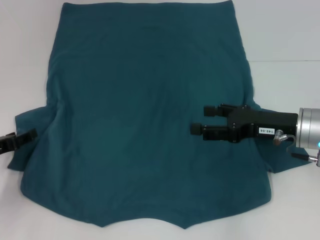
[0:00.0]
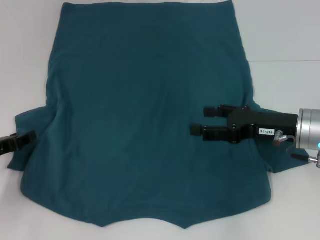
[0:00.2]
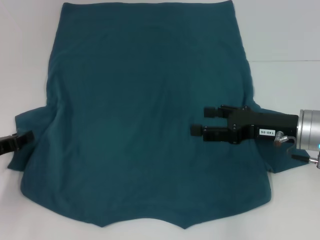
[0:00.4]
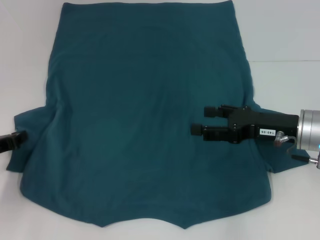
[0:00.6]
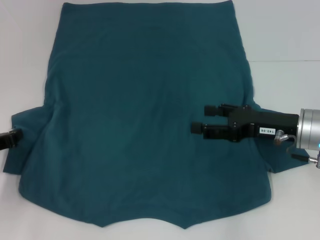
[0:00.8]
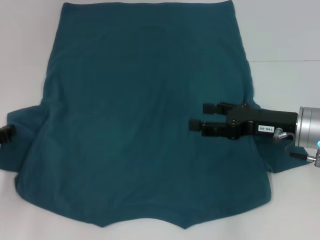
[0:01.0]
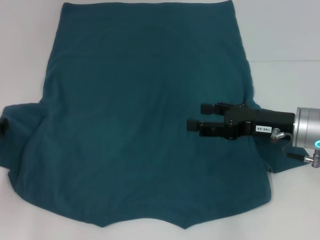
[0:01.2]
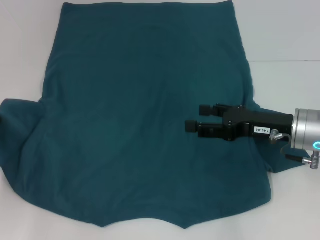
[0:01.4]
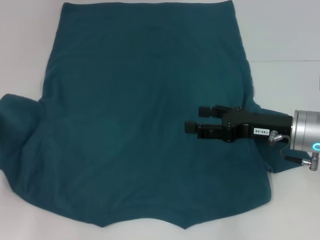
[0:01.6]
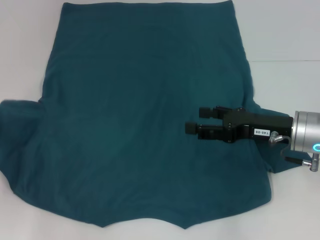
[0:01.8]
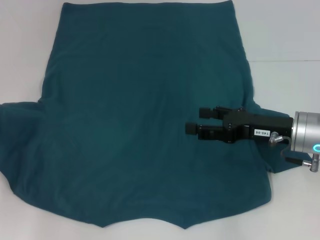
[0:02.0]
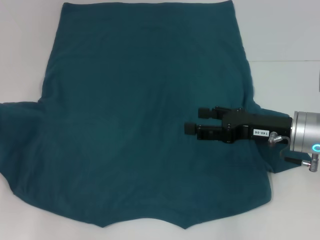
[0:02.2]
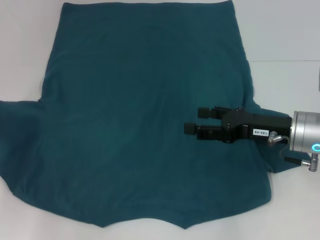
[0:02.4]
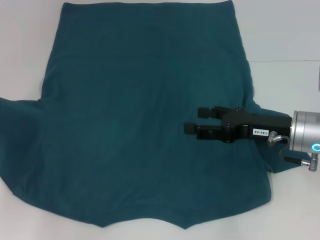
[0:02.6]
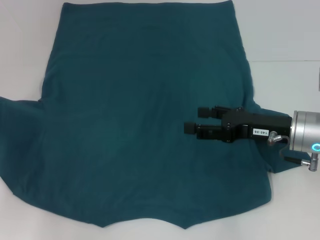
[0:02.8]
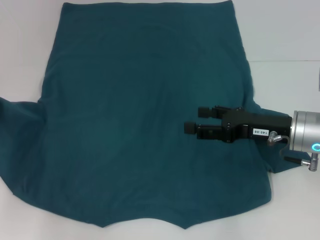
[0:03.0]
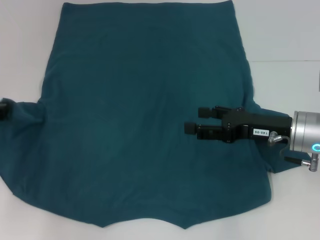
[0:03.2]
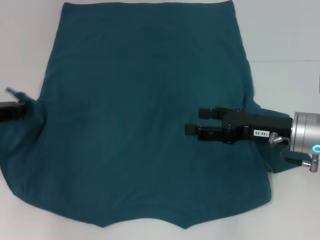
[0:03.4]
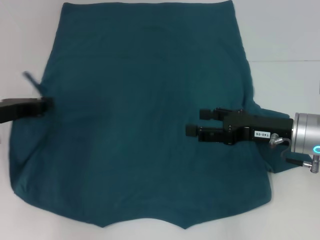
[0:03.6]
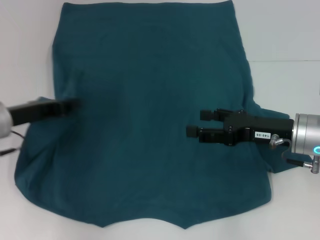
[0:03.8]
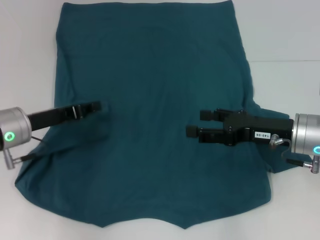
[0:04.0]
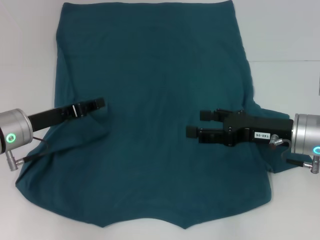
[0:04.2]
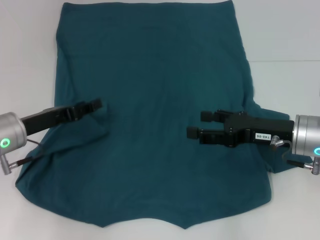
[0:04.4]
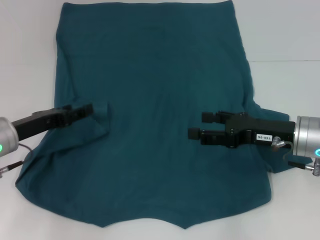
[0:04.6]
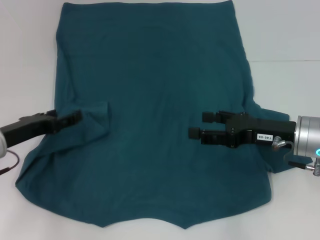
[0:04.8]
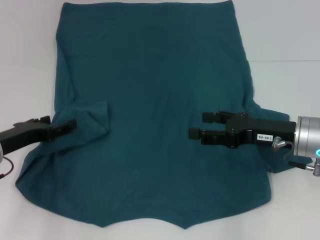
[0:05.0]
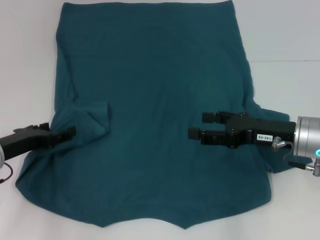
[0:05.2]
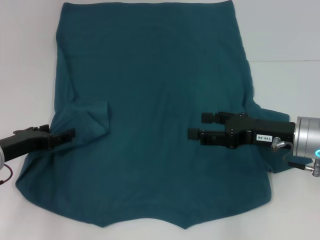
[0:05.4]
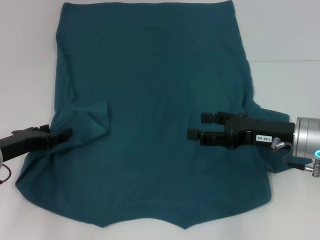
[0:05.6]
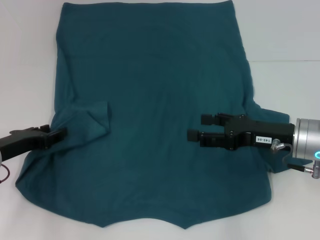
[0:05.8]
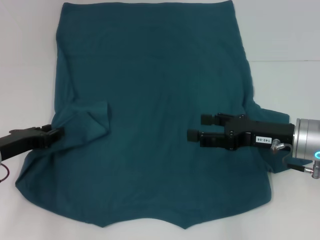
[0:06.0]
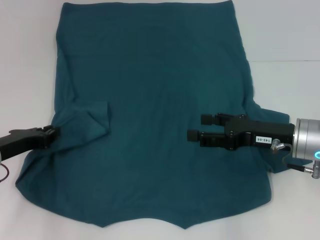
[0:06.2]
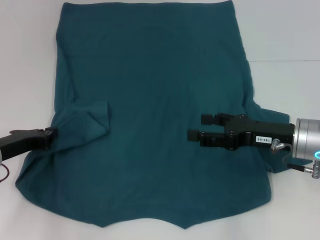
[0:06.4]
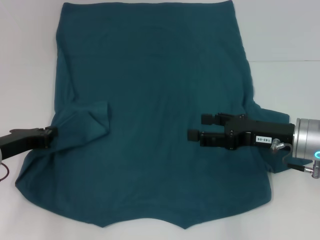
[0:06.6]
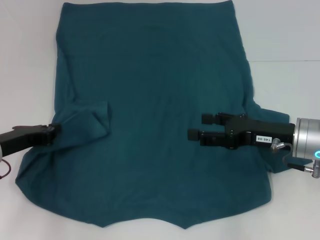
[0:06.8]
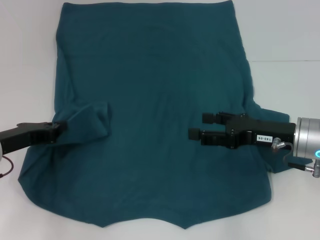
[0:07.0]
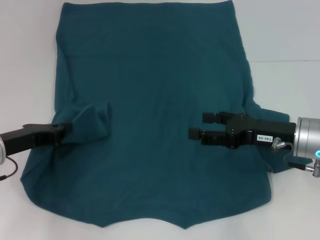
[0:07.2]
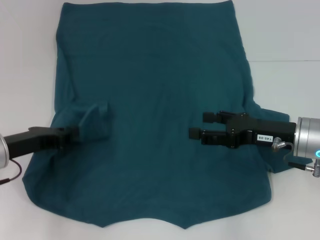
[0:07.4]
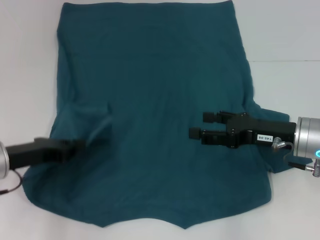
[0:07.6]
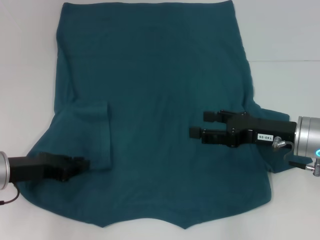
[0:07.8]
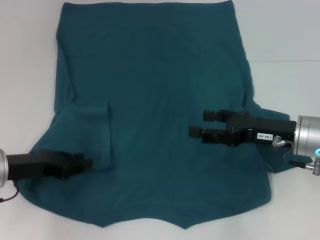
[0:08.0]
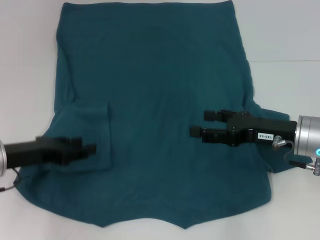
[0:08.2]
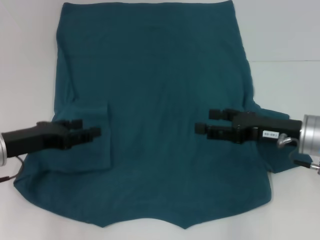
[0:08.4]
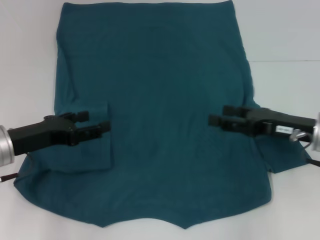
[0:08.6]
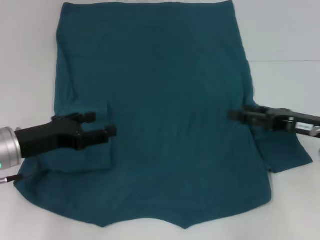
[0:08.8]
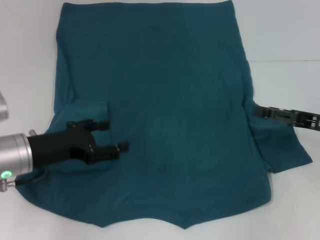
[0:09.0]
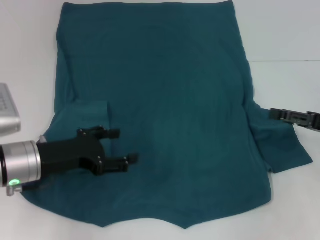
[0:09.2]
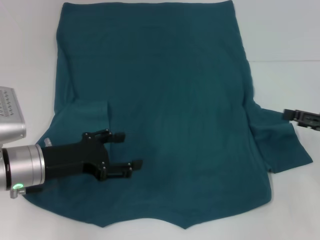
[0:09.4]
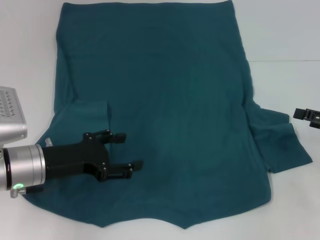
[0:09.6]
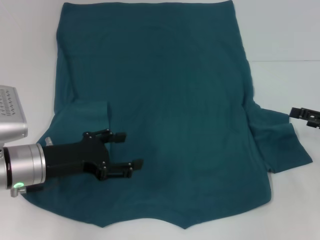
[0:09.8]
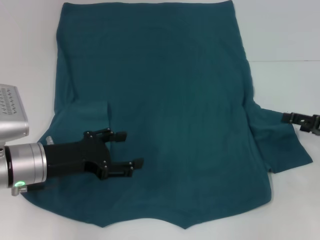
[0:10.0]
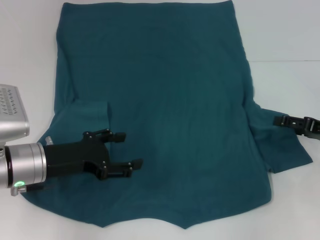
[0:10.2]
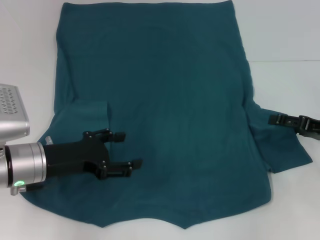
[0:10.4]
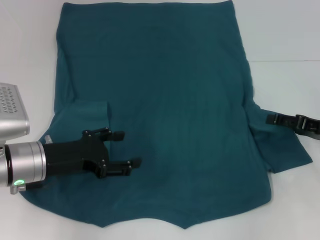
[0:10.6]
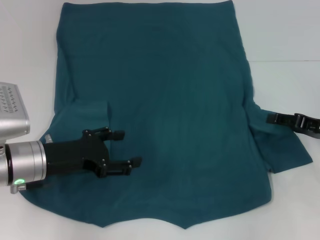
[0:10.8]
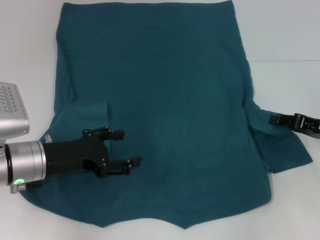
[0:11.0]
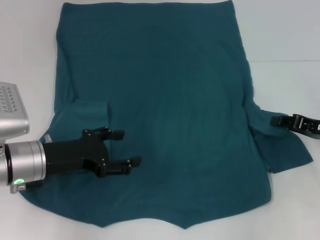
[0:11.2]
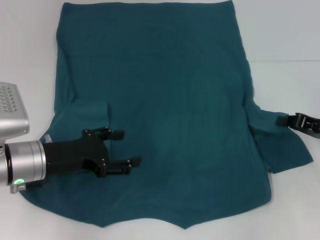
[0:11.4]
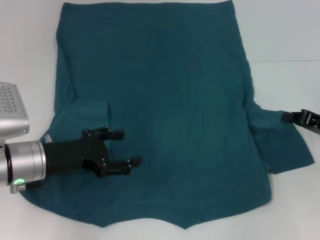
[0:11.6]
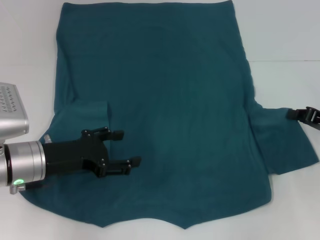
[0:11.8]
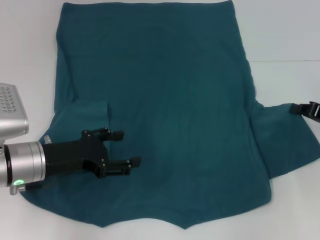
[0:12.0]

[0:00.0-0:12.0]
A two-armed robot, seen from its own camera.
Step, 0:00.0 to 0:08.2: Fold the bottom left sleeve with your left hand.
0:00.0 to 0:01.6: The left gripper closes up.
0:01.6 to 0:03.0: The grippers make only small movements.
0:03.0 to 0:04.4: The left gripper is displaced to the right by some 10 cm, and opens up.
0:04.4 to 0:06.0: The left gripper shifts by some 5 cm, and opens, then closes again.
0:06.0 to 0:07.6: The left gripper closes.
0:07.6 to 0:09.0: The right gripper heads to the right, covering about 10 cm. Meanwhile the left gripper opens.
0:10.4 to 0:12.0: The right gripper closes its fingers.

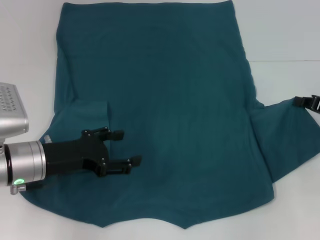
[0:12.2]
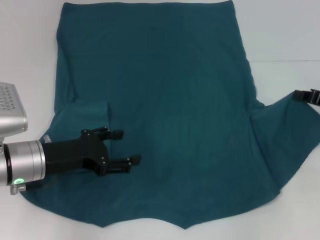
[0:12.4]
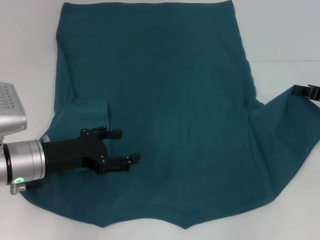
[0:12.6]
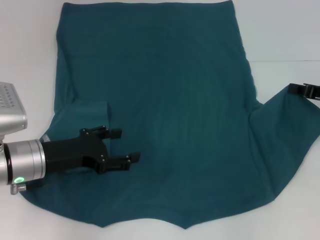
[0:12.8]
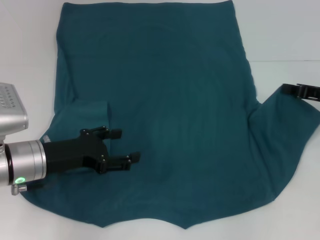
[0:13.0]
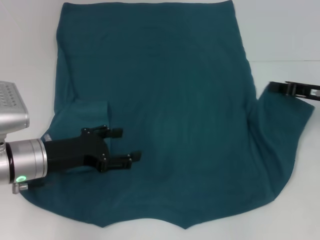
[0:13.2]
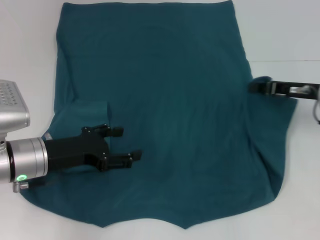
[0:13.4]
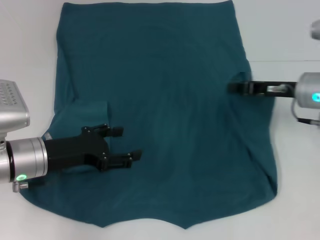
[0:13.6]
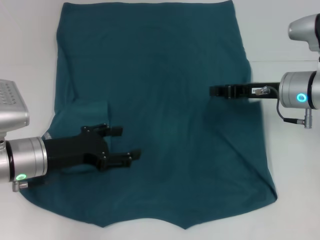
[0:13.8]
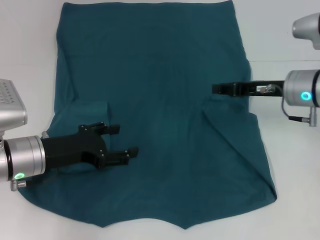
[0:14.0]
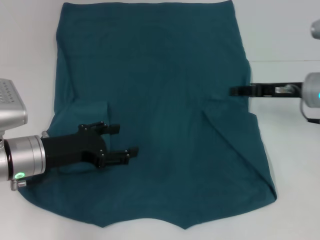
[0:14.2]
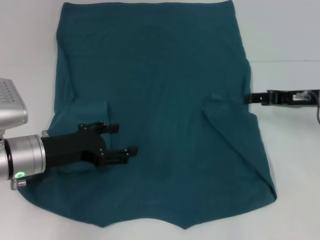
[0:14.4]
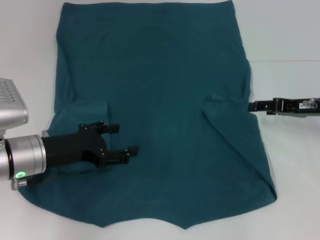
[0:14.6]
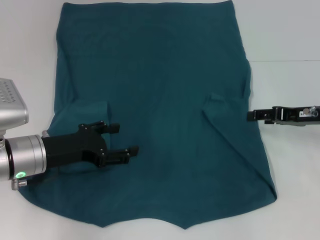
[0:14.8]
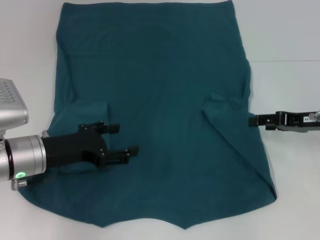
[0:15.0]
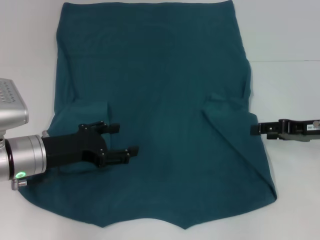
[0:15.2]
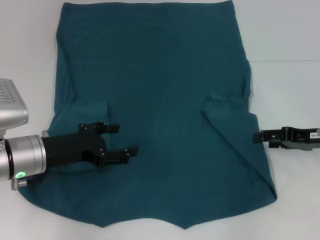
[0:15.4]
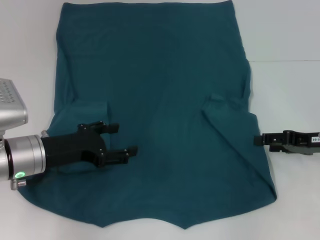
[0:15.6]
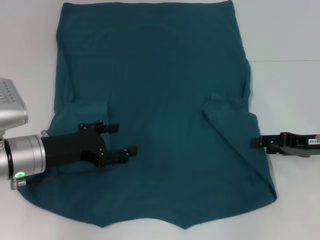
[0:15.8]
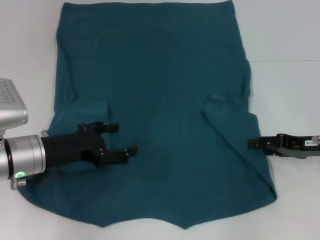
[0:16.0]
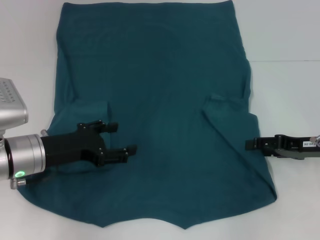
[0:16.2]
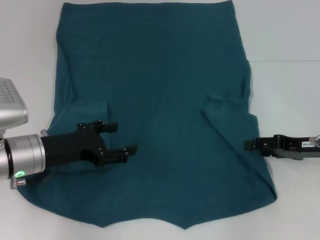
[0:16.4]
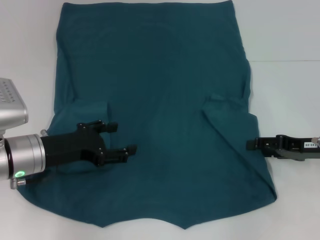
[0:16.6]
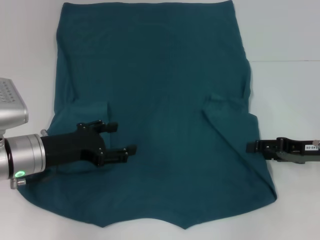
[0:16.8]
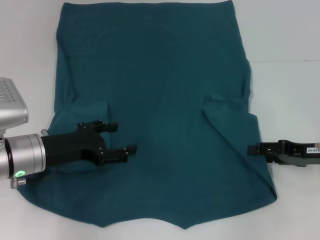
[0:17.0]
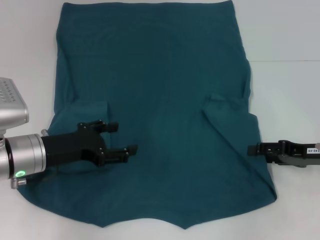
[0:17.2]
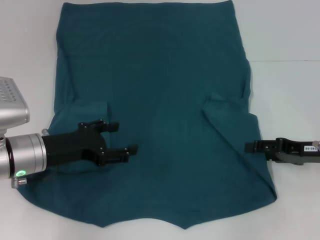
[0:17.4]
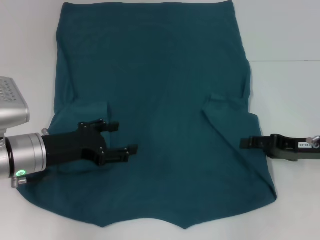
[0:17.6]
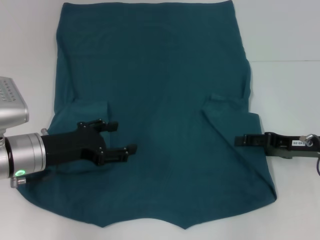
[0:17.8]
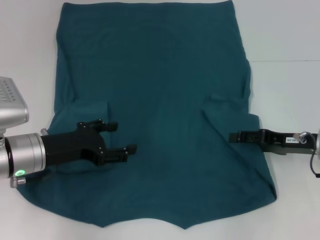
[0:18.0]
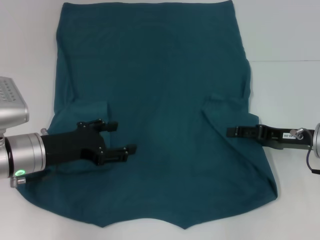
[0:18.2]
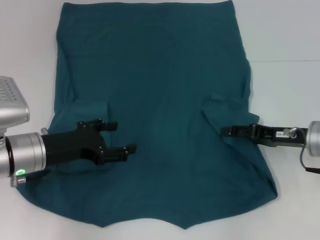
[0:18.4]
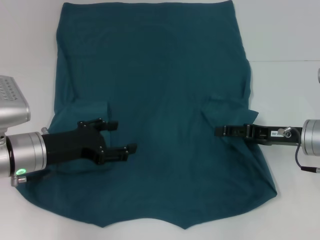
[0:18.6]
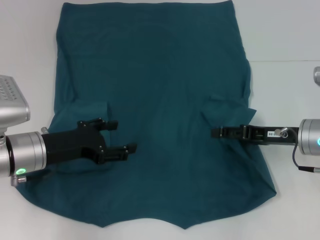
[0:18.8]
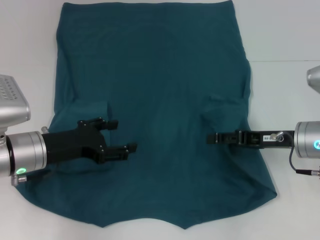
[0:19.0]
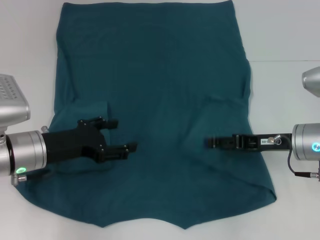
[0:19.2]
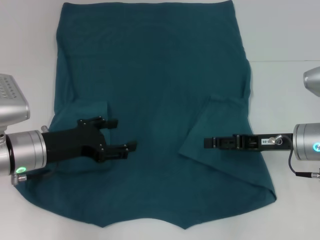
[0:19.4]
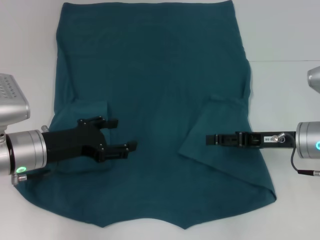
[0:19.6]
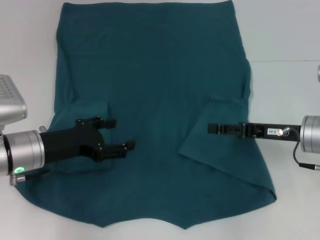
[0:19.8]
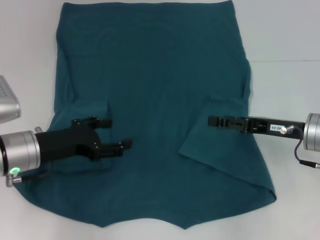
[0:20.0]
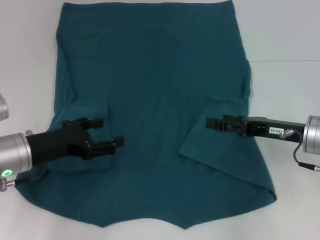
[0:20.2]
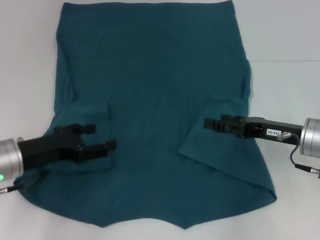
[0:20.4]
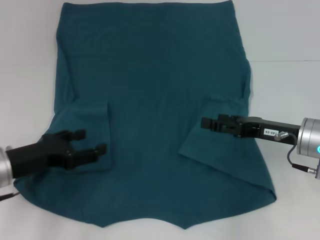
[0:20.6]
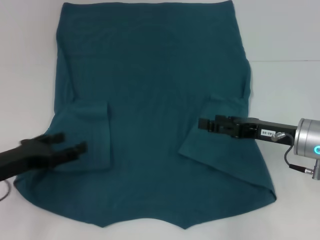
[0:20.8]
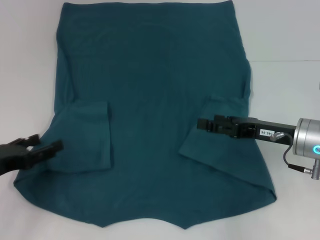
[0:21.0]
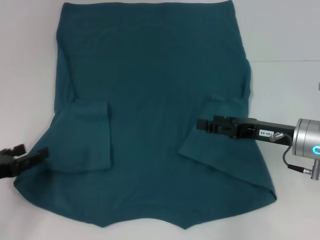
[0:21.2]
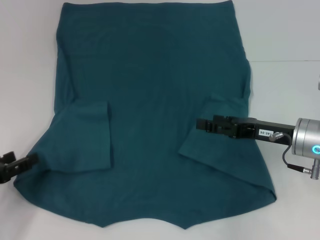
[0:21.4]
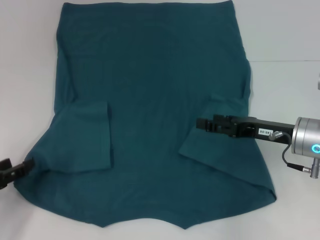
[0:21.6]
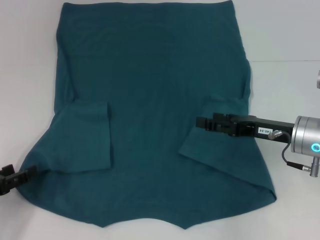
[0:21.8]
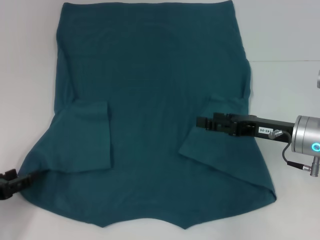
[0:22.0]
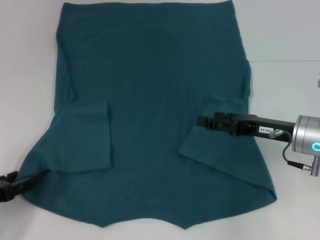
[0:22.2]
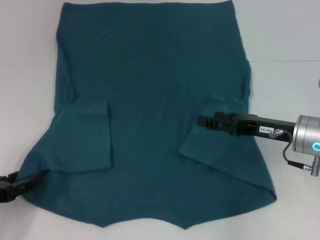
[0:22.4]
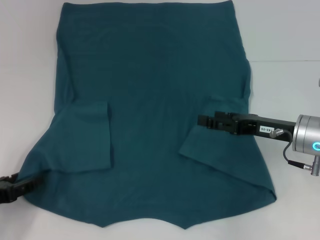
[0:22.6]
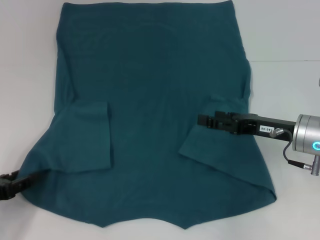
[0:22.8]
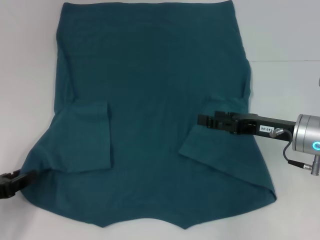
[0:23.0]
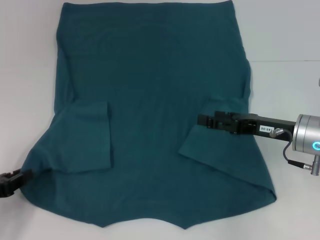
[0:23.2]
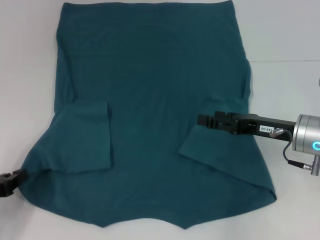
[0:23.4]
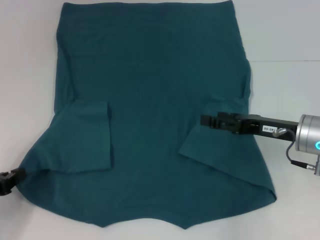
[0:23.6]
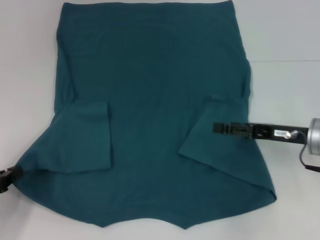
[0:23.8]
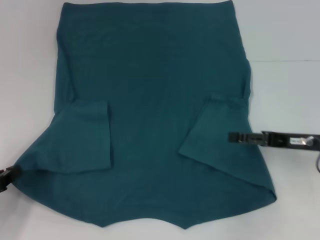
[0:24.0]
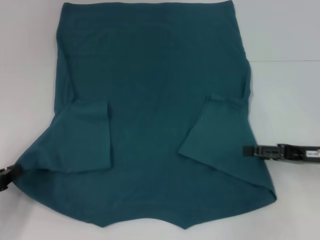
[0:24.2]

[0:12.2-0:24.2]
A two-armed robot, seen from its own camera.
Step, 0:12.2 to 0:19.8: Fold the bottom right sleeve to the right.
Step, 0:20.0 to 0:24.0: Grab the bottom left corner with your left hand.
0:12.2 to 0:13.8: The right gripper is displaced to the left and forward by roughly 15 cm.
0:13.8 to 0:15.2: The right gripper is displaced to the right by roughly 10 cm, and opens.
0:15.2 to 0:18.2: The grippers make only small movements.
0:18.2 to 0:19.8: The grippers move only a little.
0:19.8 to 0:21.2: The left gripper moves to the left and backward, approximately 15 cm.
0:21.2 to 0:22.6: The grippers stay close to where they were, moving slightly.
0:22.6 to 0:24.2: The right gripper travels to the right by some 5 cm. The left gripper closes its fingers.
